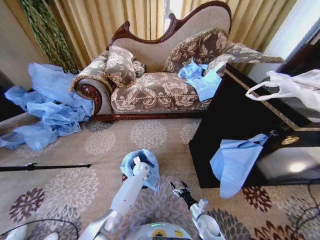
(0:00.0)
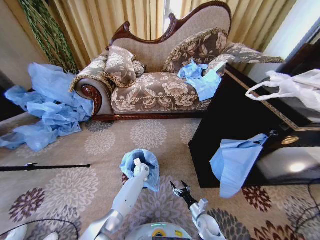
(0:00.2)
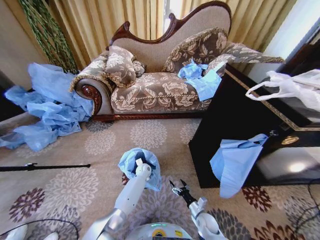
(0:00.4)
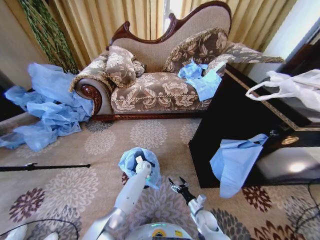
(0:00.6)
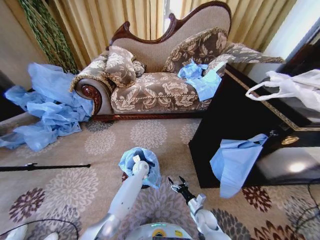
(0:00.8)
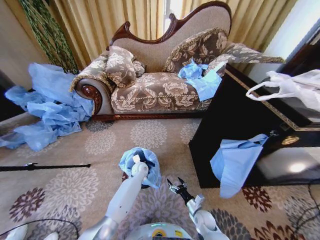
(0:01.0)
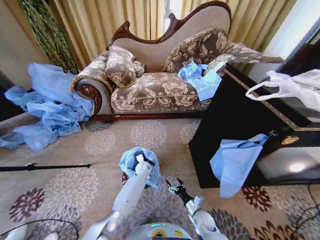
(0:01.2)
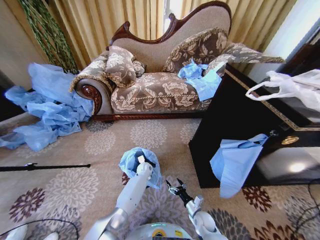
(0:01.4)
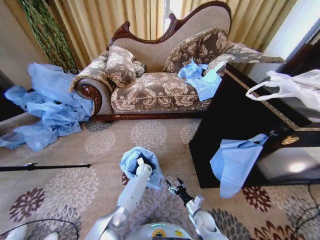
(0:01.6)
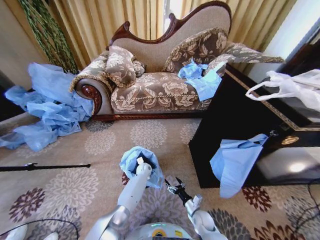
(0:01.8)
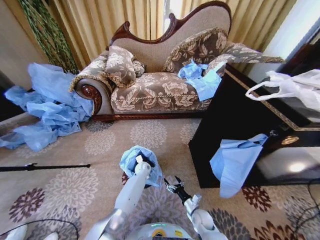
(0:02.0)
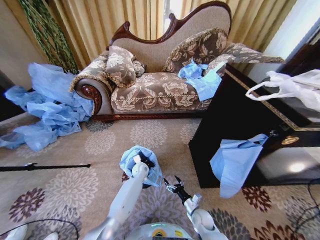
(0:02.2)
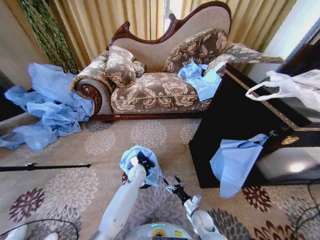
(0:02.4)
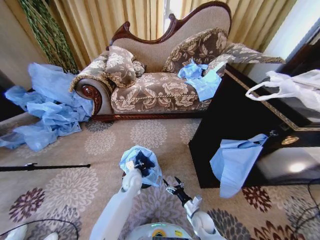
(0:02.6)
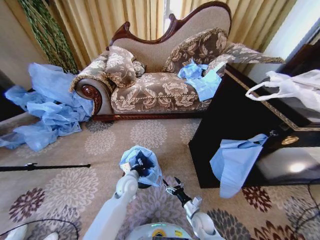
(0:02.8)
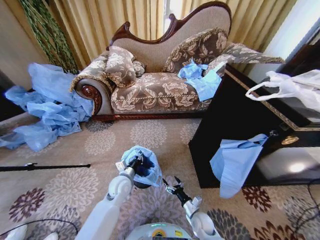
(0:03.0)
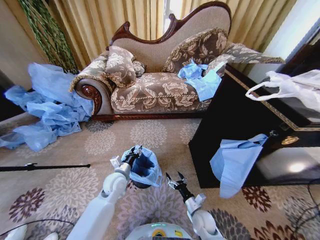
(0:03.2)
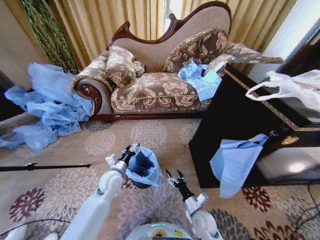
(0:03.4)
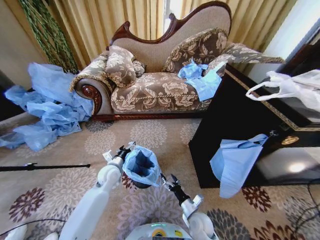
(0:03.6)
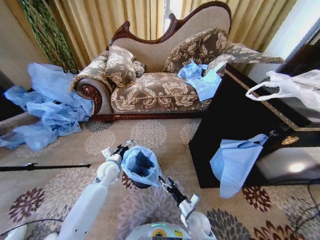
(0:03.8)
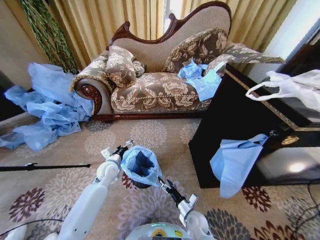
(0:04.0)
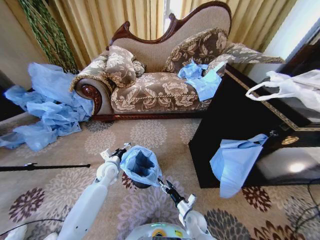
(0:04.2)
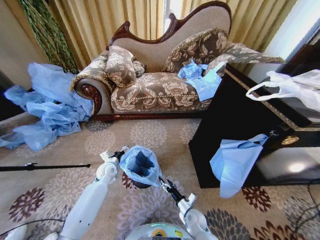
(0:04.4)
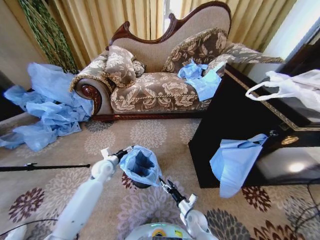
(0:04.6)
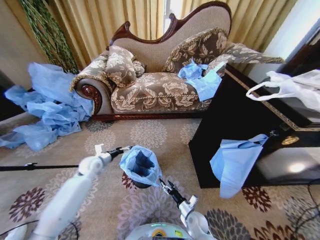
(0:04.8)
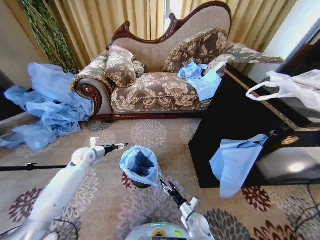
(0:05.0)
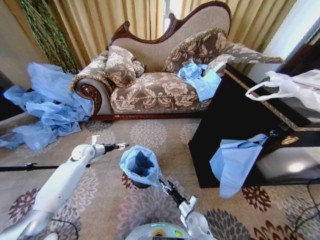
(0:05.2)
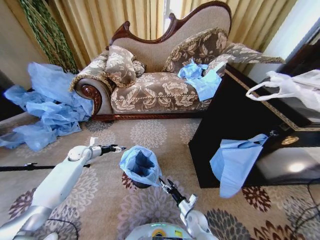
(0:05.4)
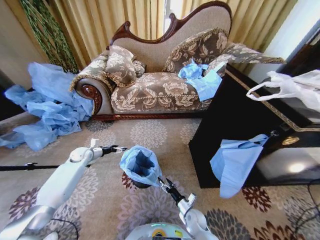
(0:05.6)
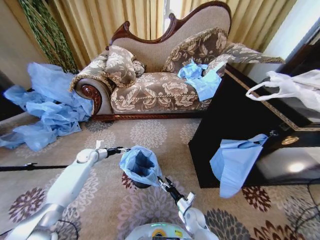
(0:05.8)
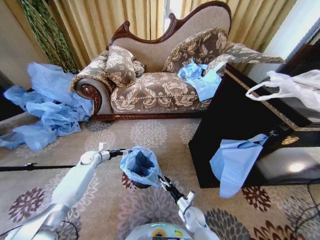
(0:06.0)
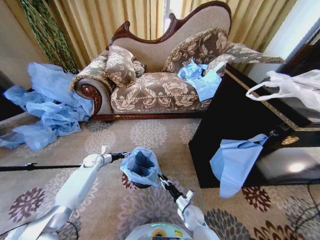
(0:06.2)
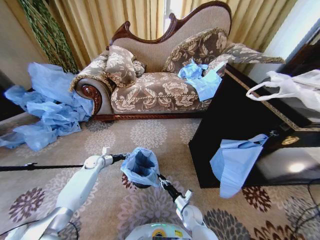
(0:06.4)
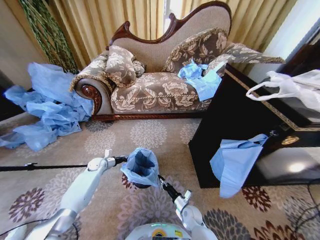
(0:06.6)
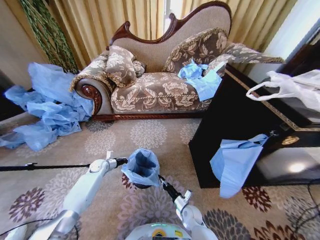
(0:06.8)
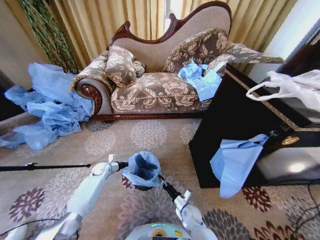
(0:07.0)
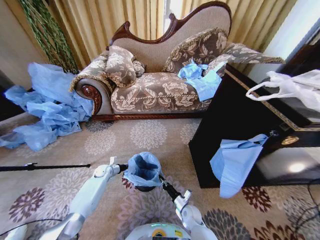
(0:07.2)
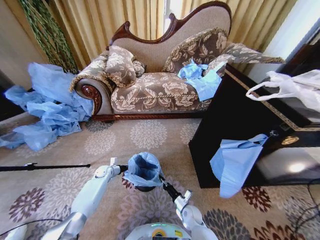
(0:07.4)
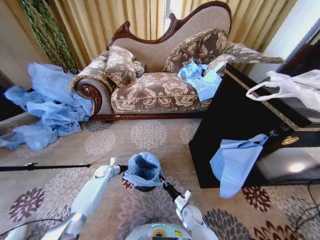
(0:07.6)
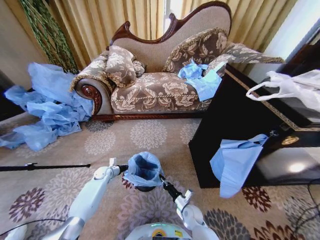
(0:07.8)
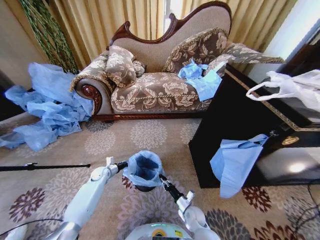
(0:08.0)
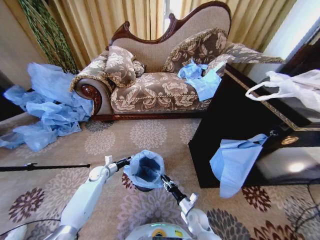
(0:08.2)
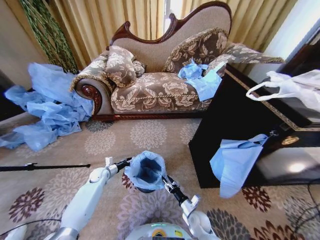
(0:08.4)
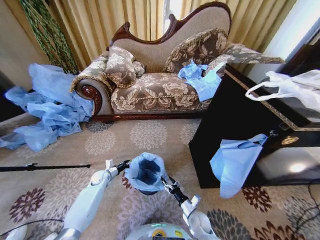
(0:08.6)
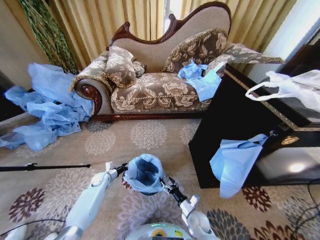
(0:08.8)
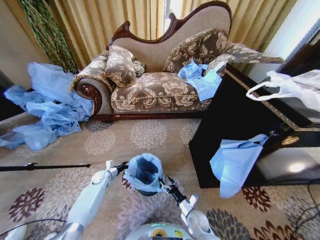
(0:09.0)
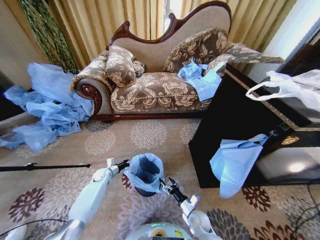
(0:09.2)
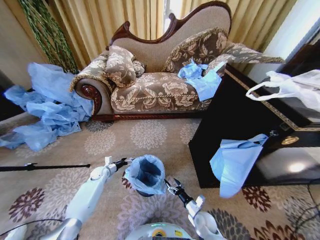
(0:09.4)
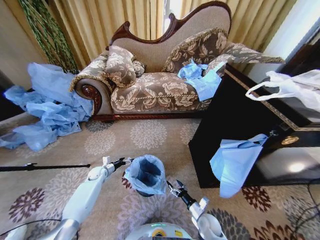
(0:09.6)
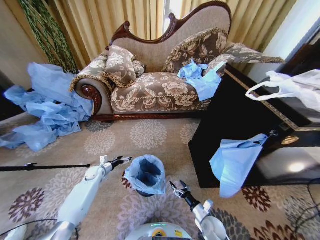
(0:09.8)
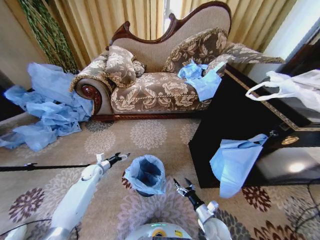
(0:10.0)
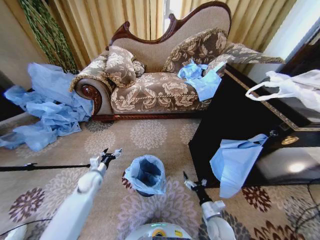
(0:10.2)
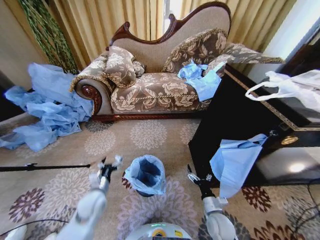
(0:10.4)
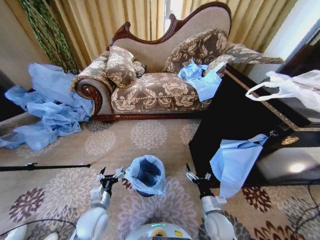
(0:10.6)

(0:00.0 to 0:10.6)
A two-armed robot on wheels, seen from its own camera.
Task of the whole recording: Place a garbage bag over the trash bin.
0:00.0 - 0:01.6: There are only small adjustments of the grippers.
0:01.6 - 0:03.0: The left gripper shifts approximately 25 cm backward, upward and to the left.
0:03.0 - 0:04.6: The left gripper moves to the left and forward, some 15 cm, and opens its fingers; the right gripper travels upward and back again, about 5 cm each way.
0:04.6 - 0:06.0: The left gripper shifts some 15 cm to the left and forward.
0:06.0 - 0:07.6: The right gripper closes its fingers, while the left gripper goes about 10 cm downward and to the right, and closes up.
0:07.6 - 0:09.0: The left gripper opens. The right gripper opens.
0:09.0 - 0:10.6: The left gripper moves backward, upward and to the right, some 30 cm. The right gripper heads upward, covering approximately 10 cm.

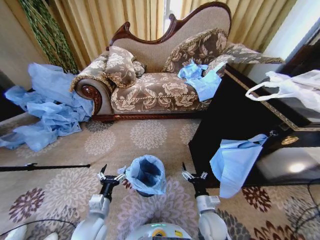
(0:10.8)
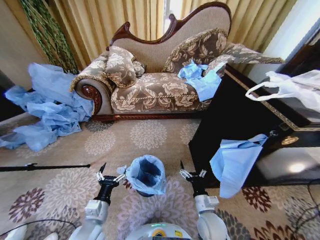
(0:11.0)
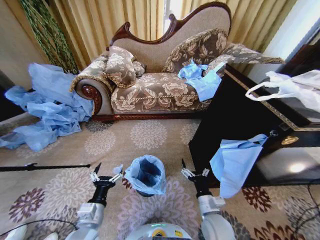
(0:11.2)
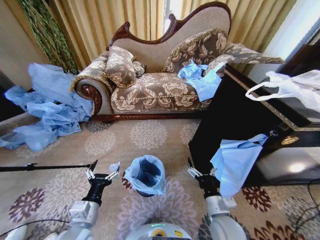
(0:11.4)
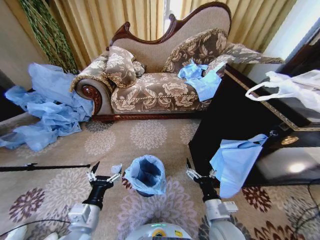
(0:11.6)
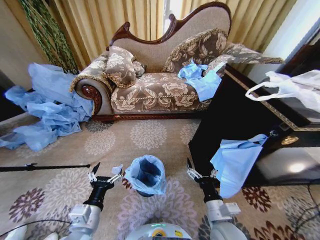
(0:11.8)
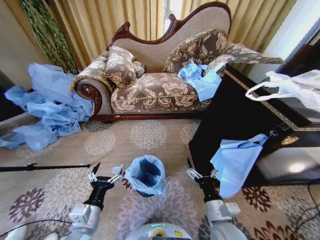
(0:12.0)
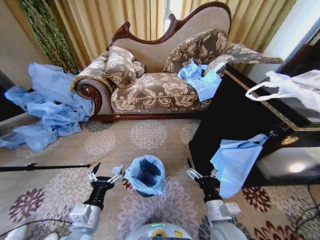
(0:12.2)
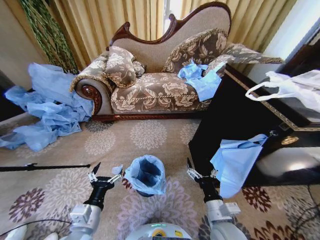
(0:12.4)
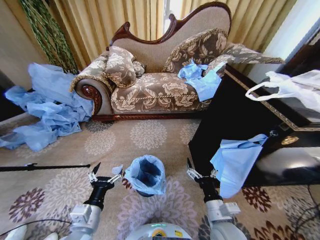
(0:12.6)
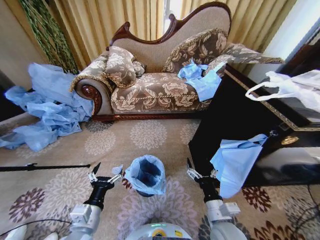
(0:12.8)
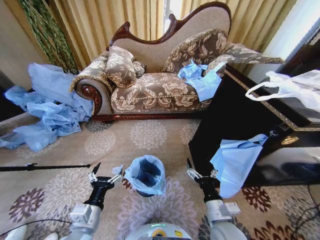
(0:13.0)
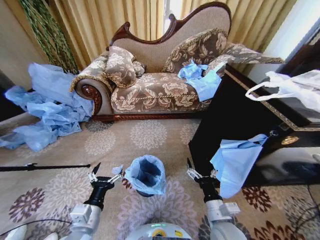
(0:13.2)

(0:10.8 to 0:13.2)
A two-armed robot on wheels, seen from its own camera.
Task of the whole recording: Place a garbage bag over the trash bin.
0:10.8 - 0:12.0: The grippers both shift upward by approximately 10 cm.
0:12.0 - 0:13.2: Neither gripper changes place.

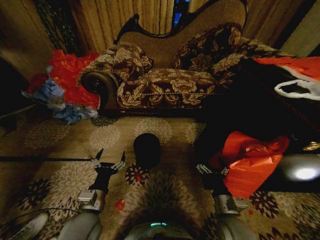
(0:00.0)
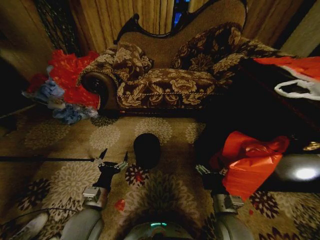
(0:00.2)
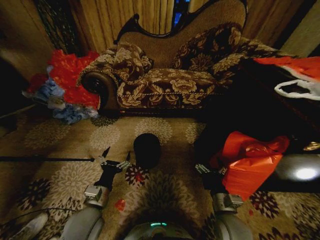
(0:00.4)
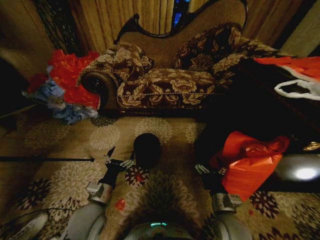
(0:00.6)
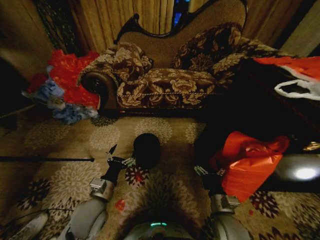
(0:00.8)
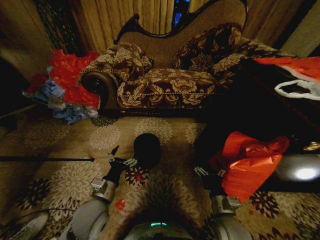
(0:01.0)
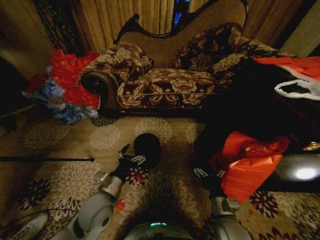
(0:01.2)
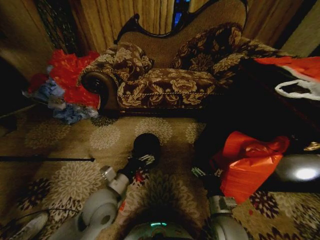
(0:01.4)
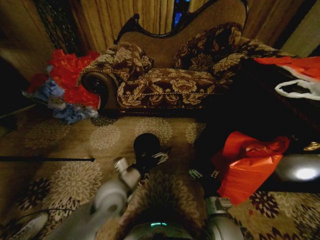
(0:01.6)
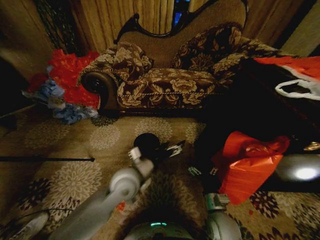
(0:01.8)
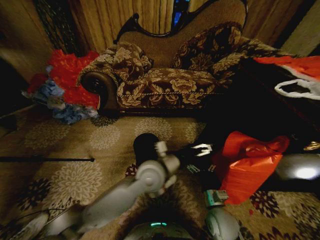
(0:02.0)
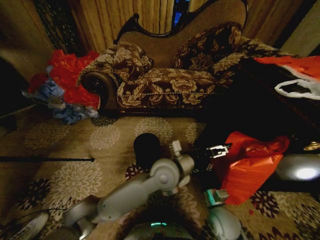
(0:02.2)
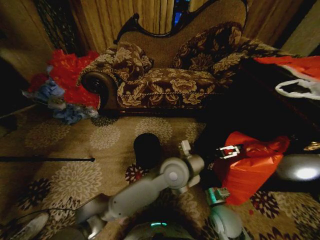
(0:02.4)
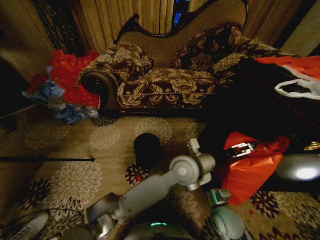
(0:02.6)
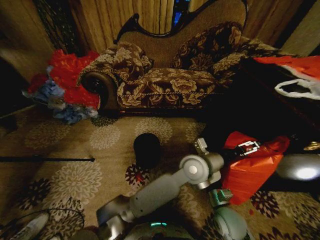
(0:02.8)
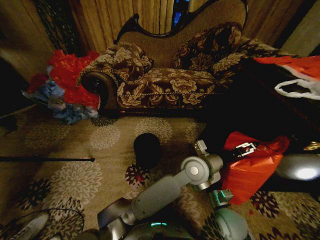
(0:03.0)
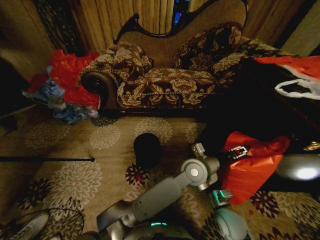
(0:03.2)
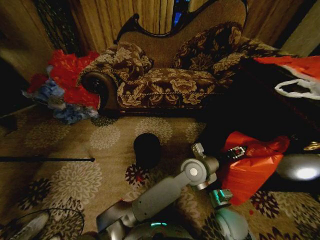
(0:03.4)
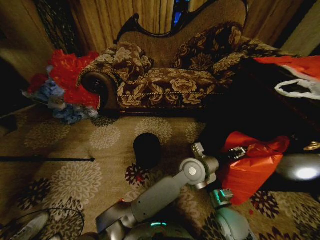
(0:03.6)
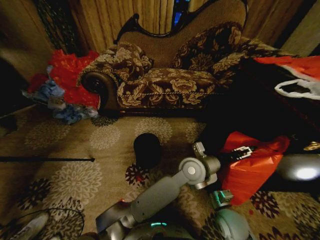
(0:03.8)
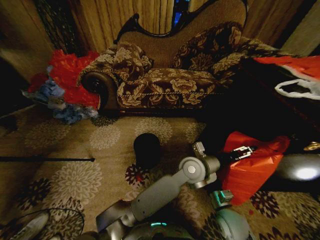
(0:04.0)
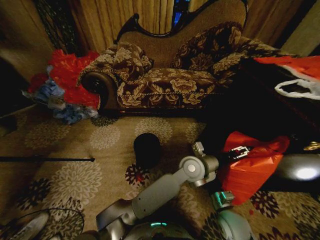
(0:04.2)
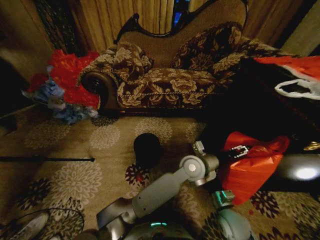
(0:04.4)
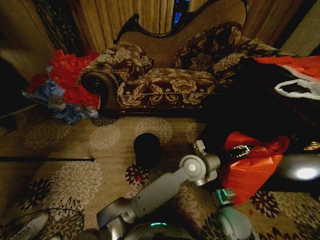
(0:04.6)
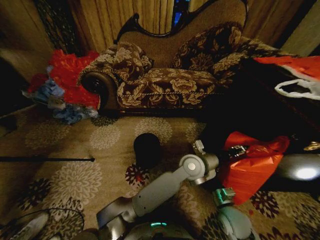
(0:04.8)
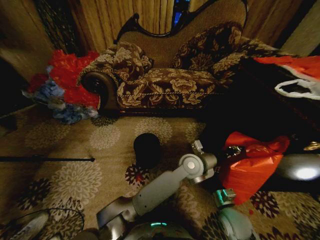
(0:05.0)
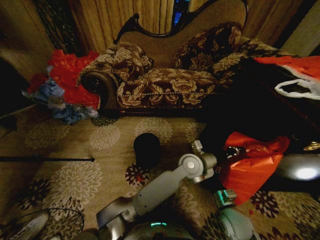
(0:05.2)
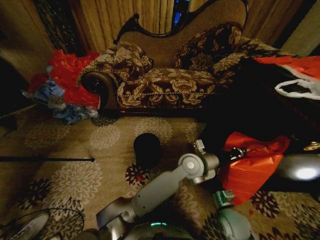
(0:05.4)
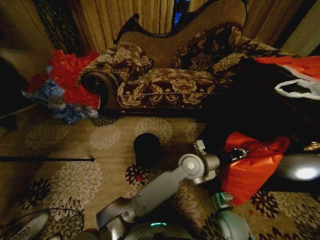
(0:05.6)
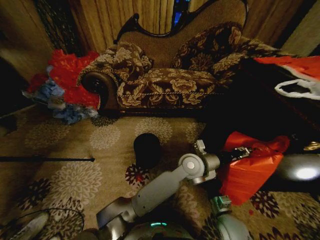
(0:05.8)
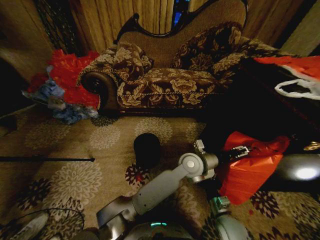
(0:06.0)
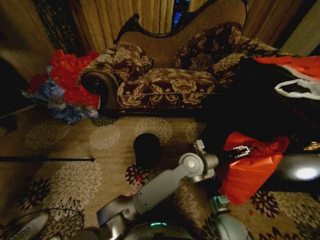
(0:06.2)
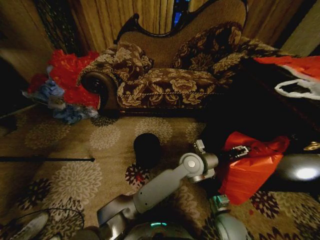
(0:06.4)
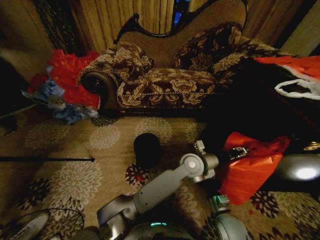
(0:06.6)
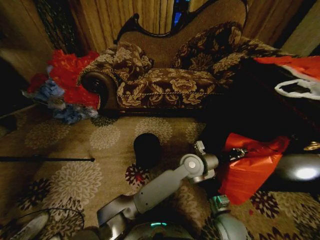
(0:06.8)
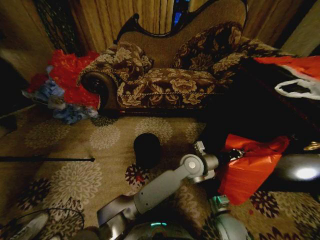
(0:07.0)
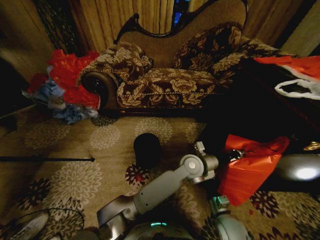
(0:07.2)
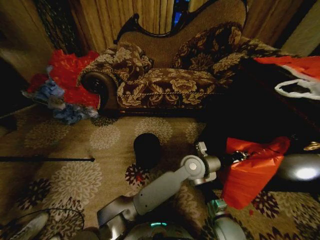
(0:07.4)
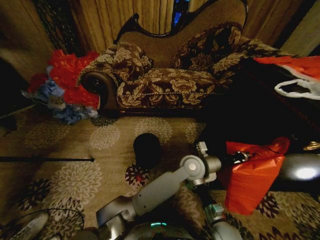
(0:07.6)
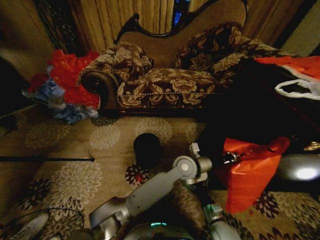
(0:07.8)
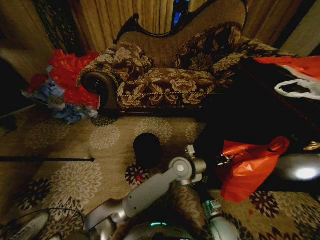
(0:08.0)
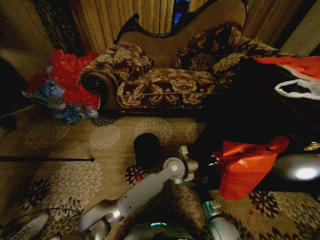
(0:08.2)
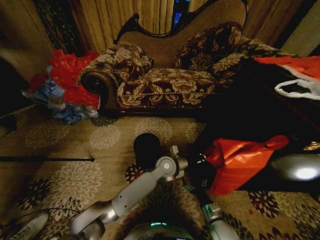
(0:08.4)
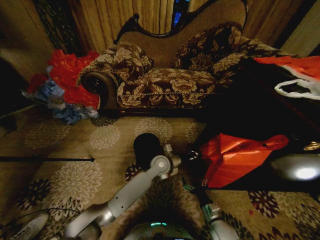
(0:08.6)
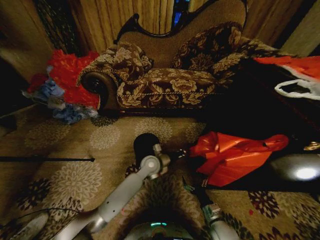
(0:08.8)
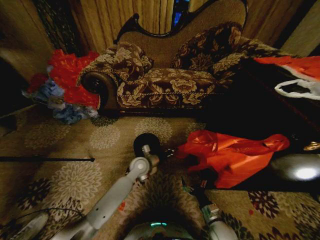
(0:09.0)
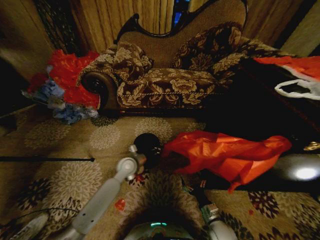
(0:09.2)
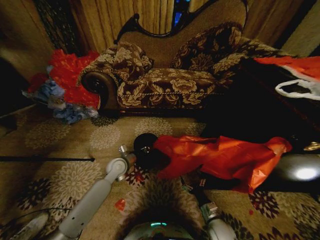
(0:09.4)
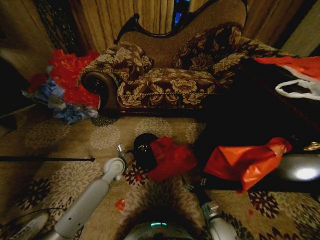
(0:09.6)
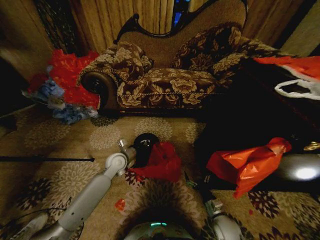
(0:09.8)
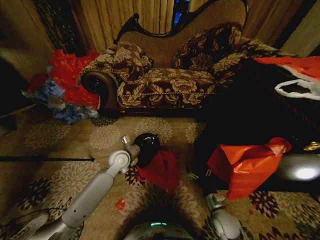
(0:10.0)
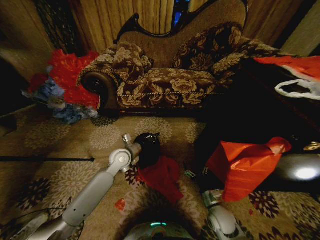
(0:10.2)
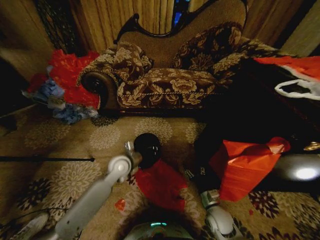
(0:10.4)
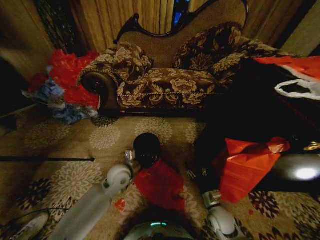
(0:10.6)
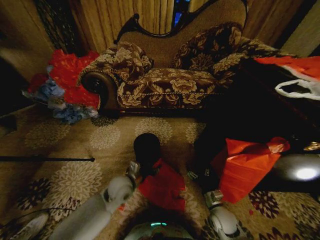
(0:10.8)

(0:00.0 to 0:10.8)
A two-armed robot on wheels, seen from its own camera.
Task of the whole recording: Place a garbage bag over the trash bin.
0:01.6 - 0:03.0: The left gripper heads to the right, covering roughly 25 cm.
0:03.0 - 0:04.6: The left gripper closes its fingers.
0:04.6 - 0:06.2: The left gripper closes, then opens again.
0:06.2 - 0:07.8: The left gripper closes up.
0:07.8 - 0:09.2: The left gripper heads to the left, covering about 25 cm.
0:09.2 - 0:10.8: The left gripper heads backward, covering some 10 cm, and opens its fingers. The right gripper moves roughly 5 cm.
